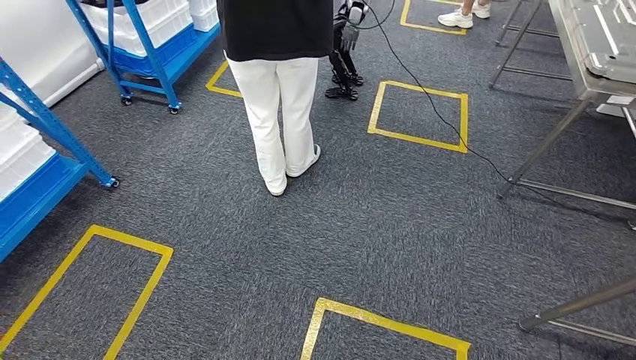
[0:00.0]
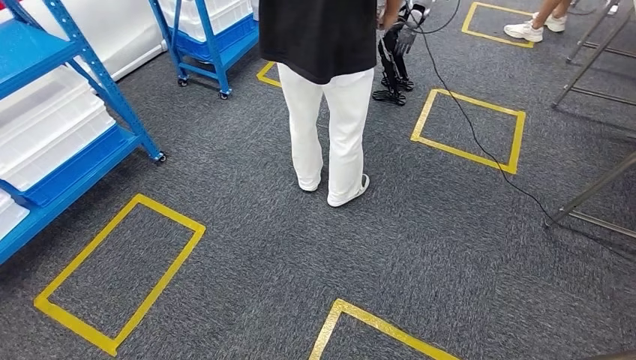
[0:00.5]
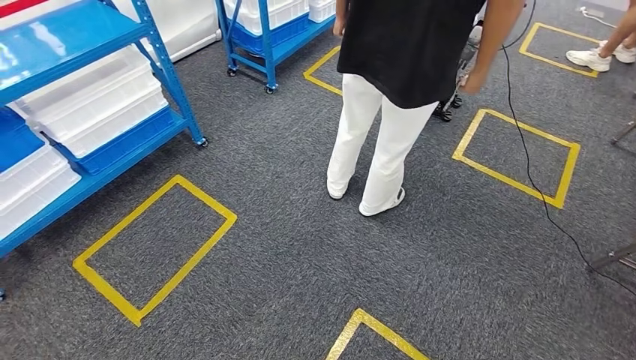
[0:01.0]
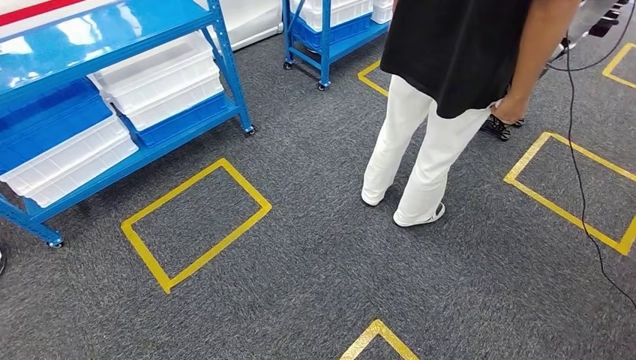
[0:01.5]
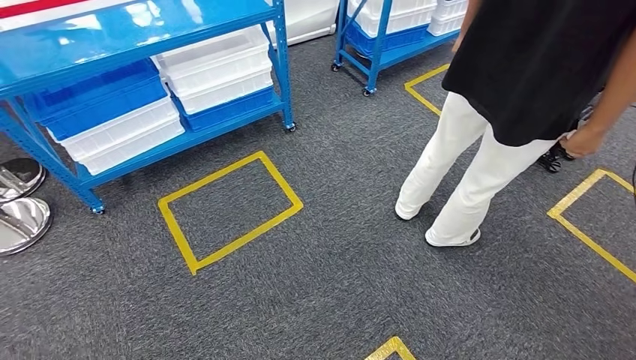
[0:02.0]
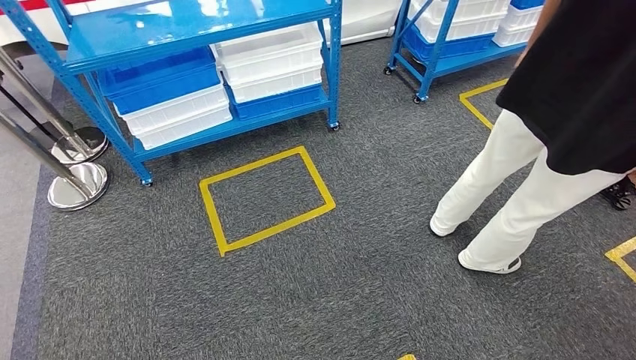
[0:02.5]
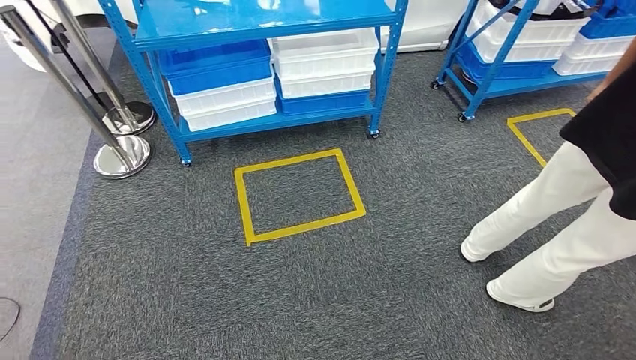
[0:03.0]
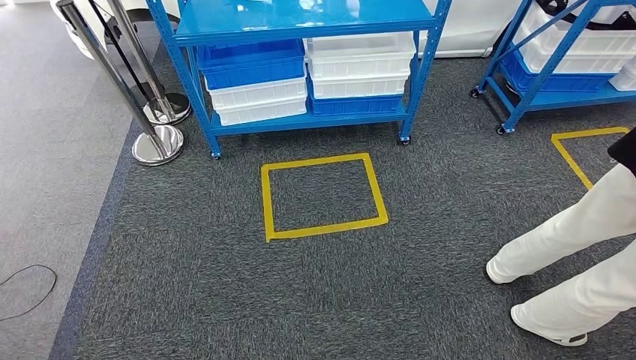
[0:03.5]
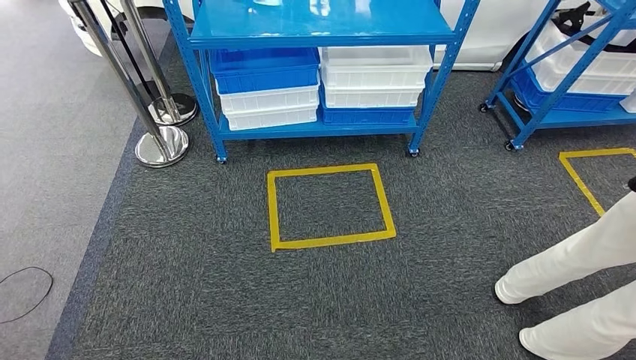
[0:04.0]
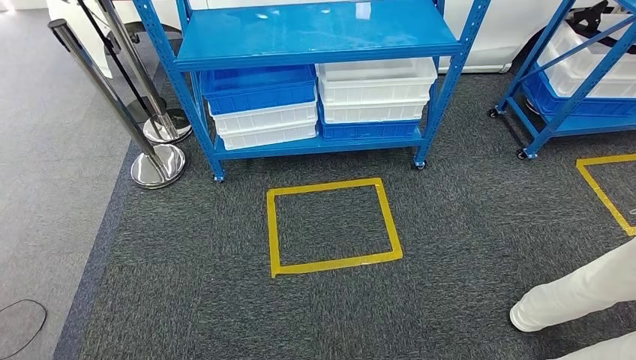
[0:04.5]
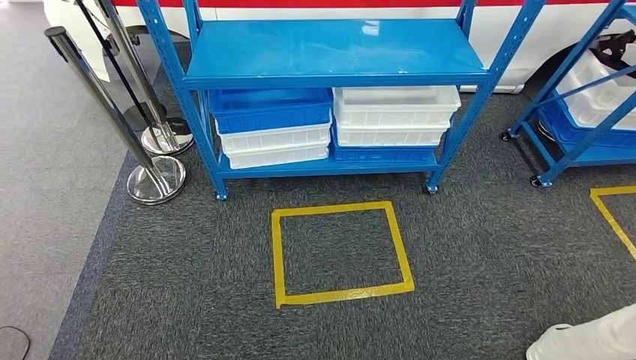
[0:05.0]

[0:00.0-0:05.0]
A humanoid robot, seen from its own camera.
Step, 0:00.0 to 0:05.0: Move to the initial position of the shelf.

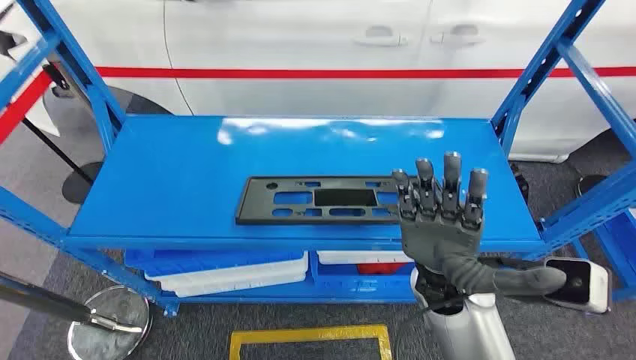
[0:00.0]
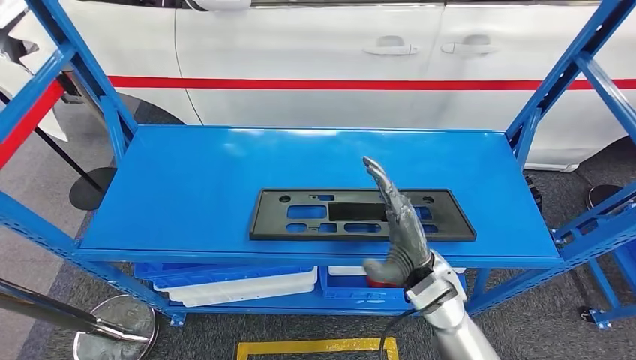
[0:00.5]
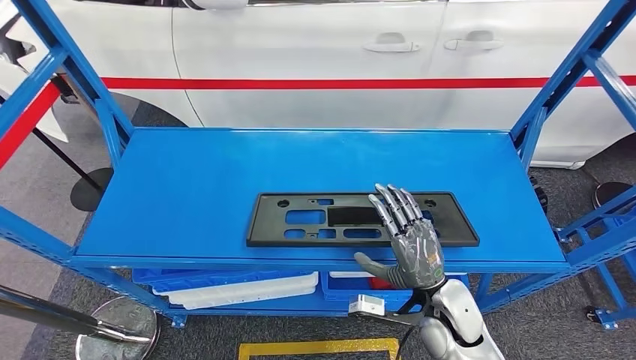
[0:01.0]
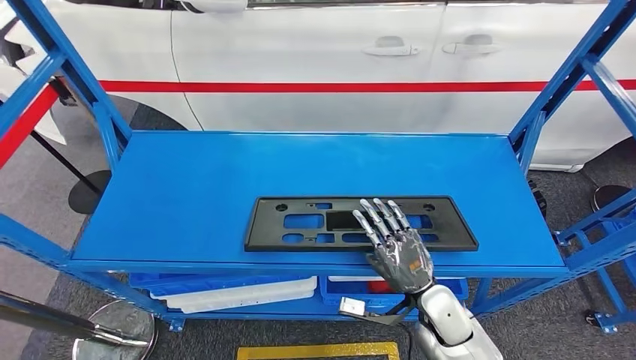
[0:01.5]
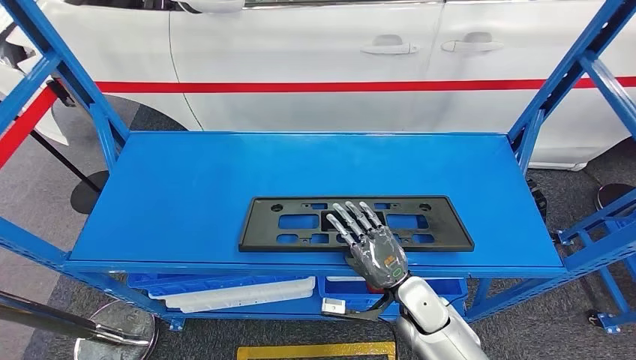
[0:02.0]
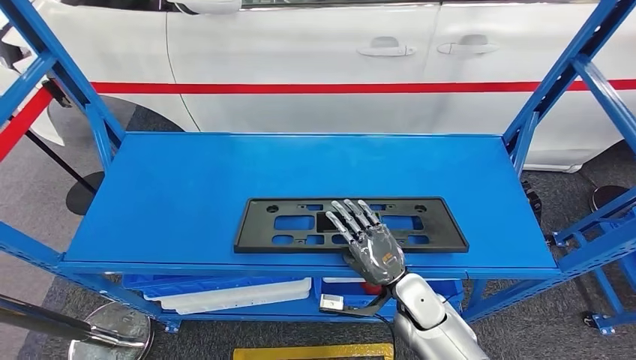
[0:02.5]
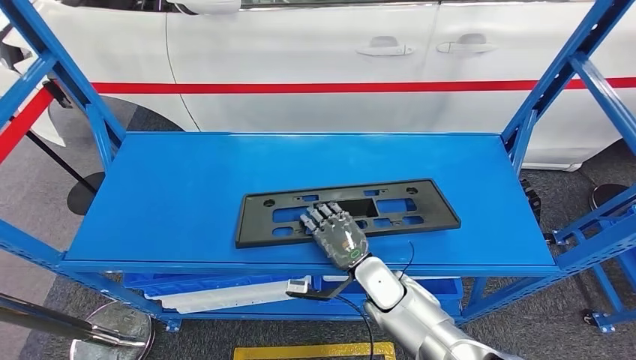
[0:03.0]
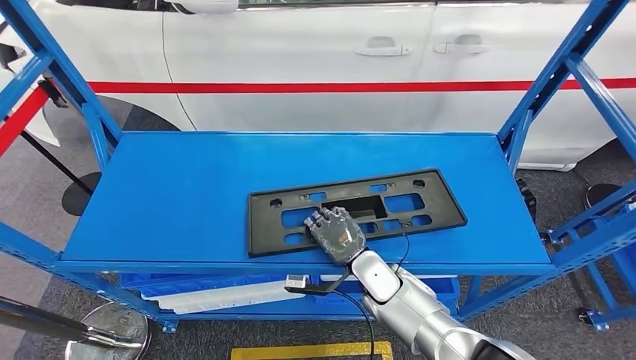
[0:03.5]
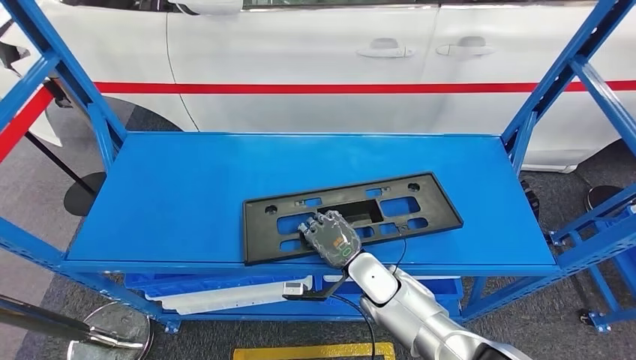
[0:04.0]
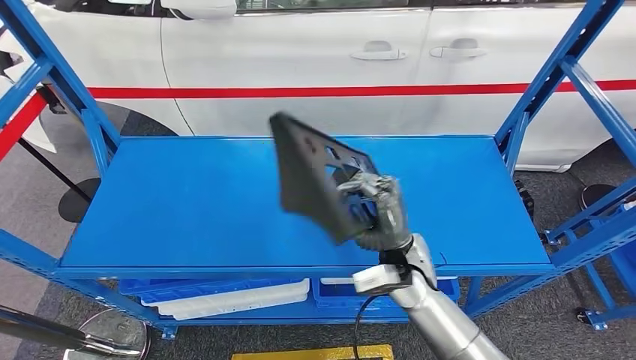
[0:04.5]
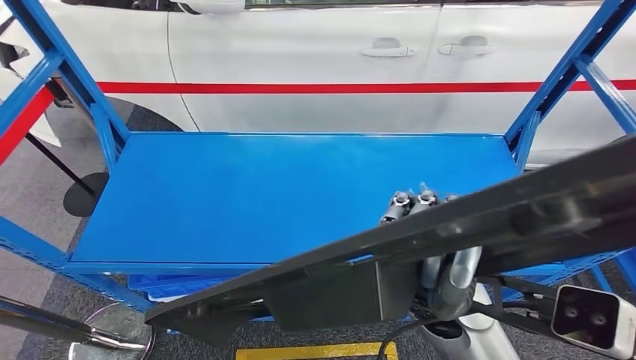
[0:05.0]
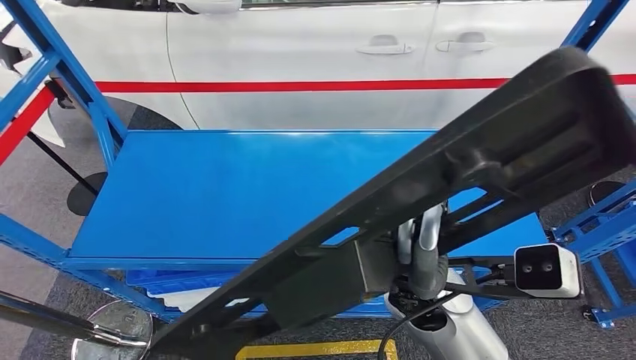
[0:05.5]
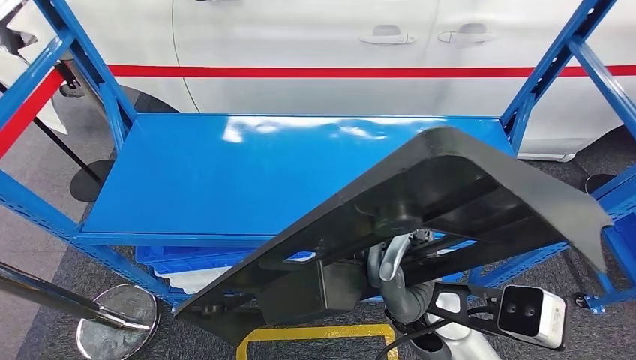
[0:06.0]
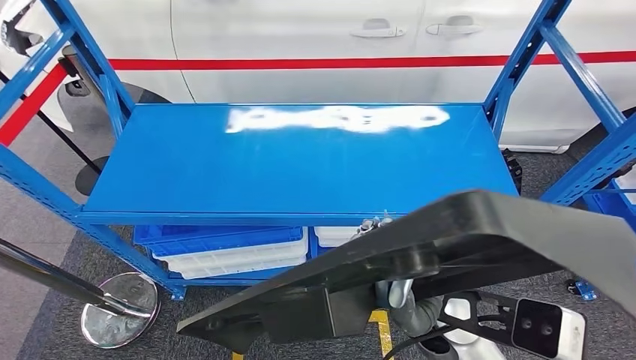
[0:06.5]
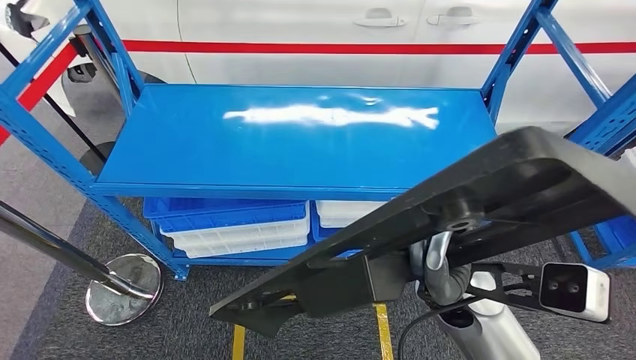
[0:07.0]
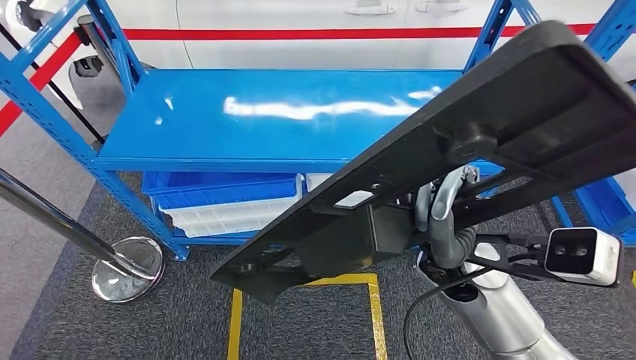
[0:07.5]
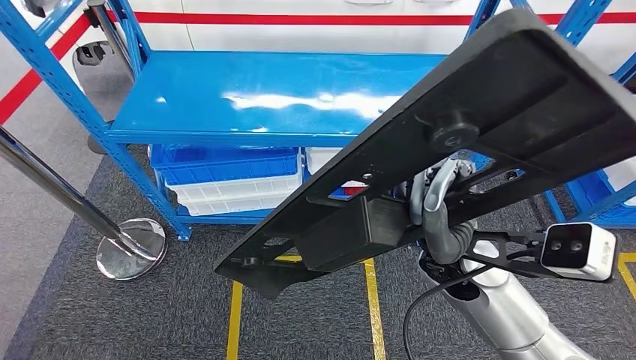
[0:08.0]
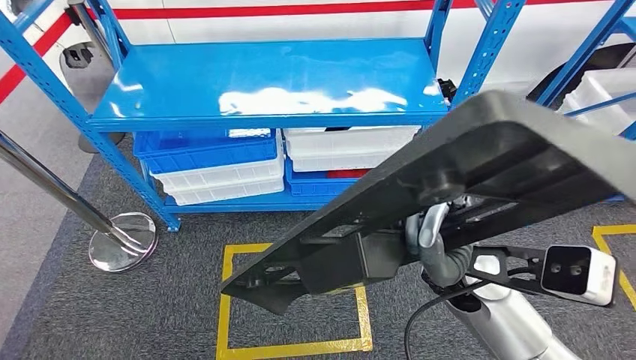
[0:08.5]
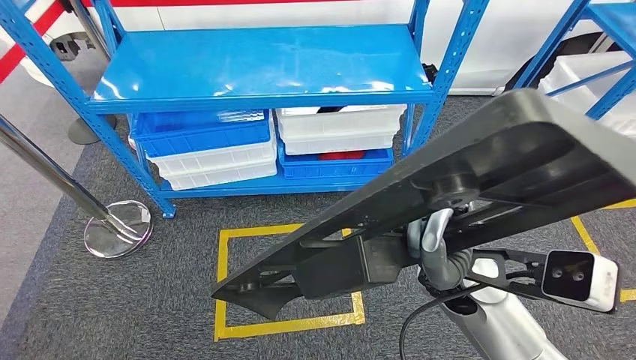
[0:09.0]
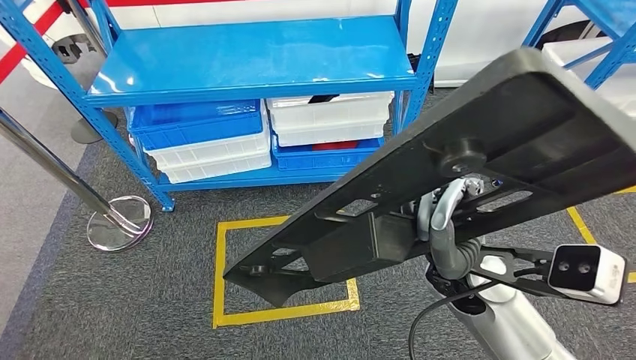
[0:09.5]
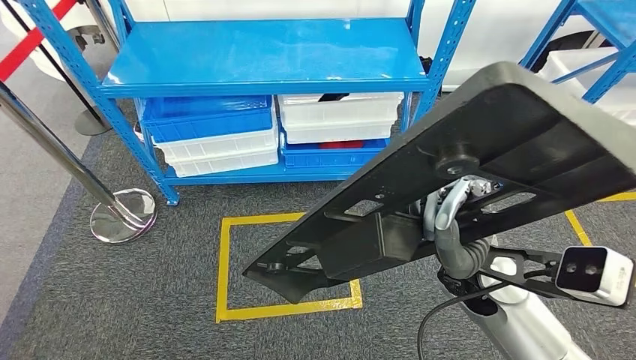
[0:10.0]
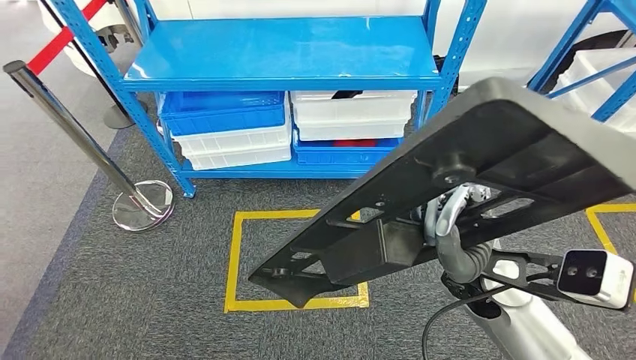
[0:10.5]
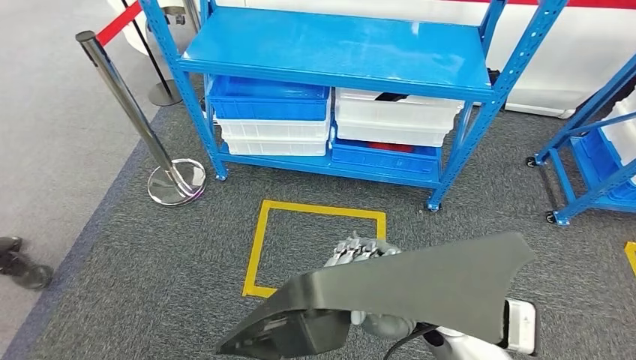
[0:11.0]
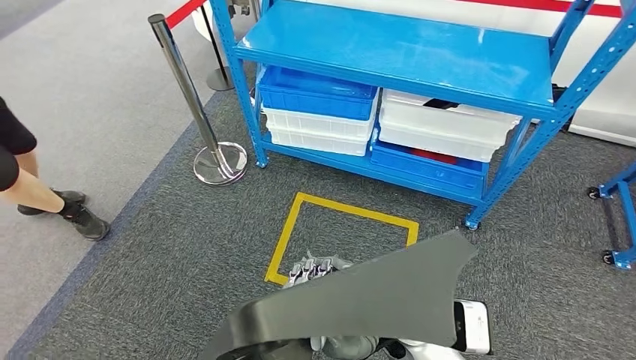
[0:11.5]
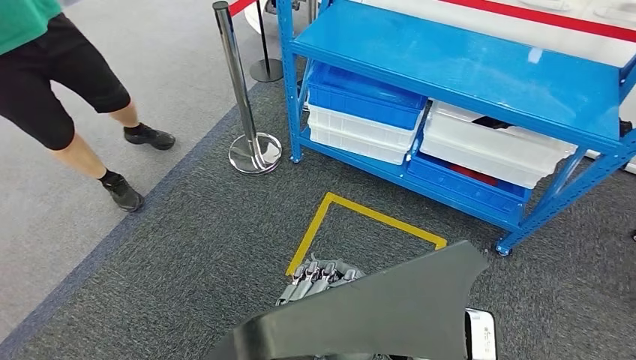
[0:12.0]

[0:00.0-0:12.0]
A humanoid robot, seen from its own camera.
Step, 0:00.0 to 0:05.0: Pick up the large material from the shelf.

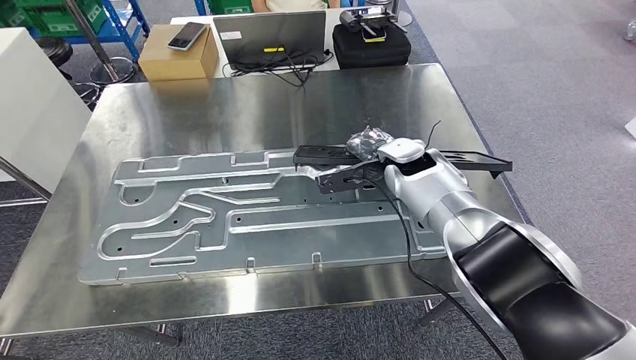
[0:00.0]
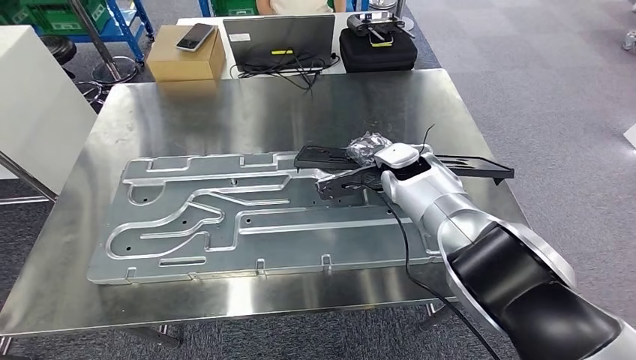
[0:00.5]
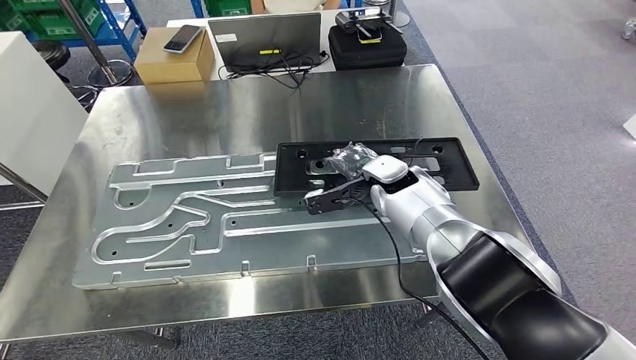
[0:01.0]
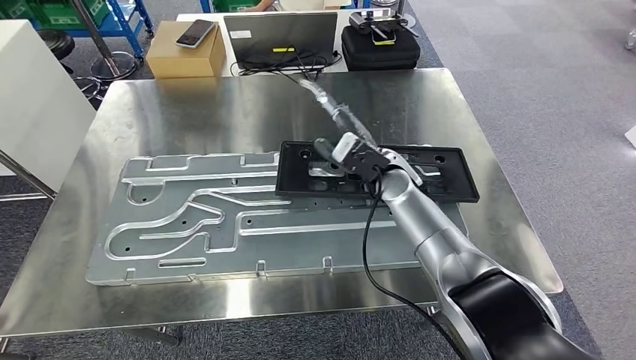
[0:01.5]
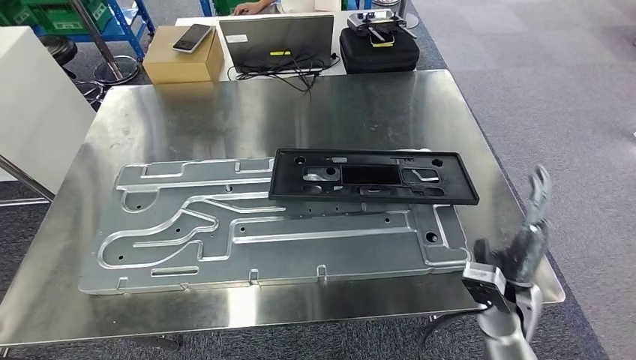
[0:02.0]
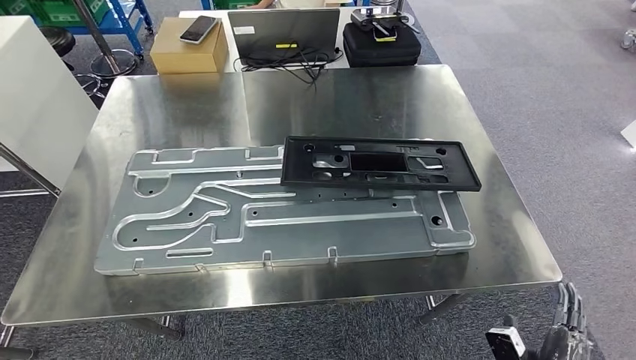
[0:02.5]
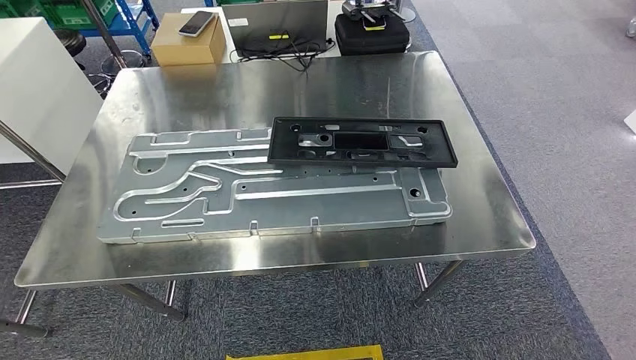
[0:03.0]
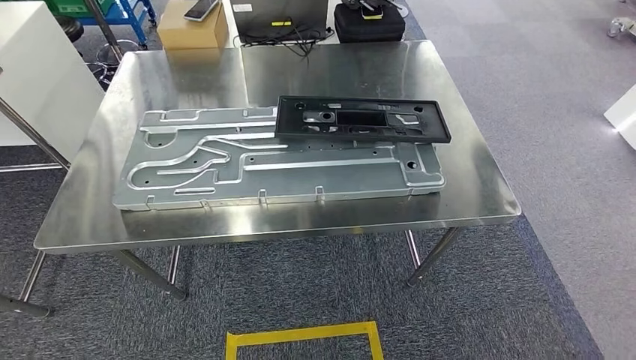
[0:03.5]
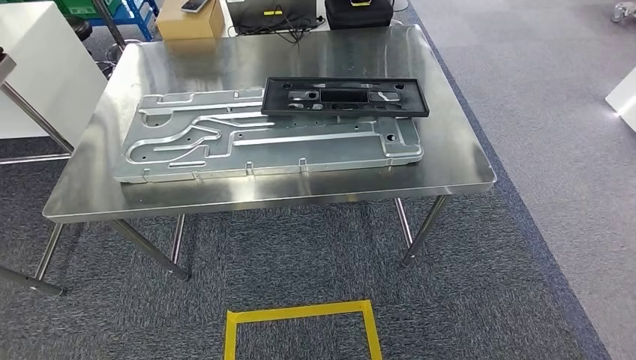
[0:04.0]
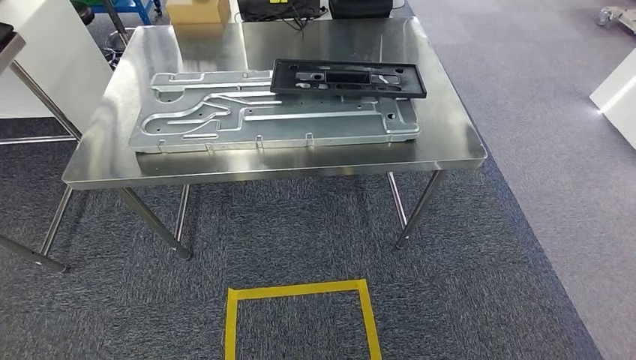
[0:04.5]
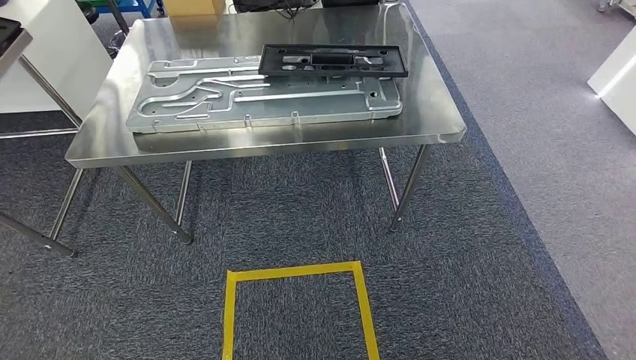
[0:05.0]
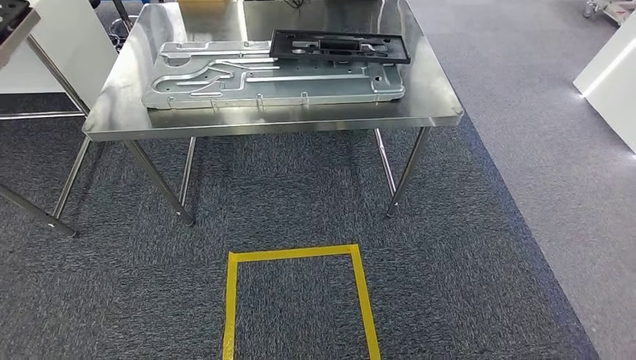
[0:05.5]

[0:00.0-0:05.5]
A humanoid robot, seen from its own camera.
Step, 0:01.0 to 0:03.0: Insert the large material into the corresponding slot on the workbench.
